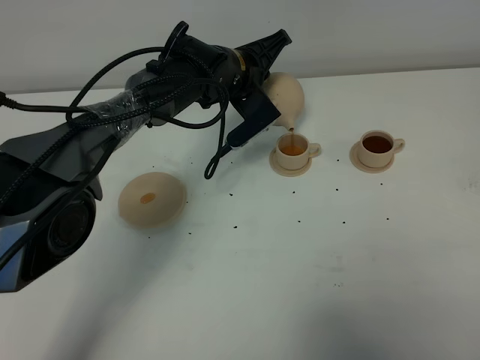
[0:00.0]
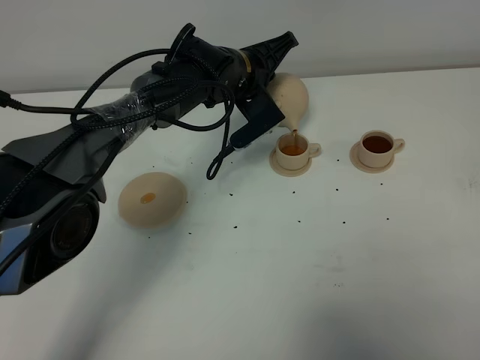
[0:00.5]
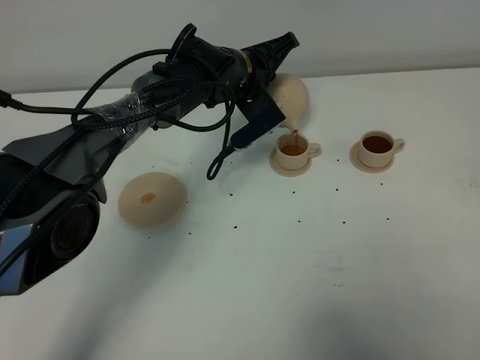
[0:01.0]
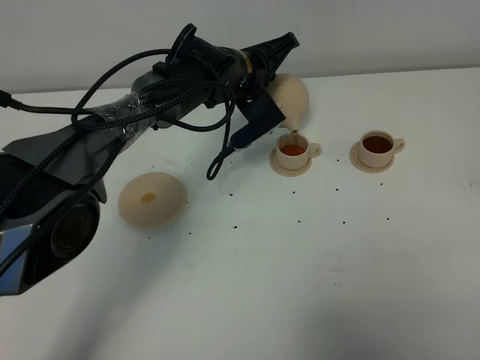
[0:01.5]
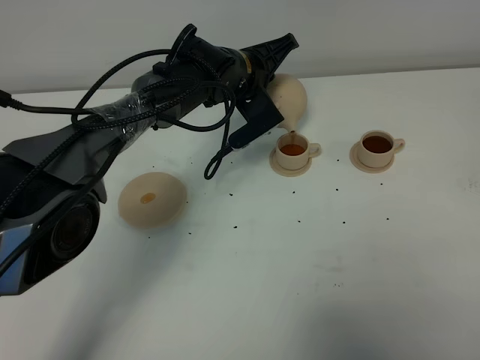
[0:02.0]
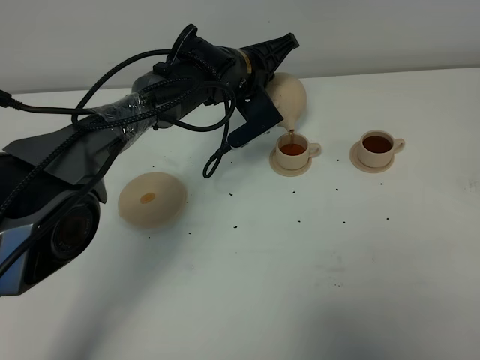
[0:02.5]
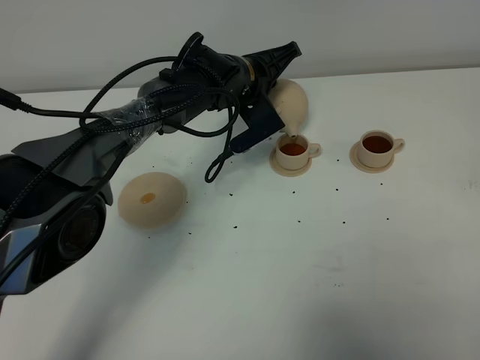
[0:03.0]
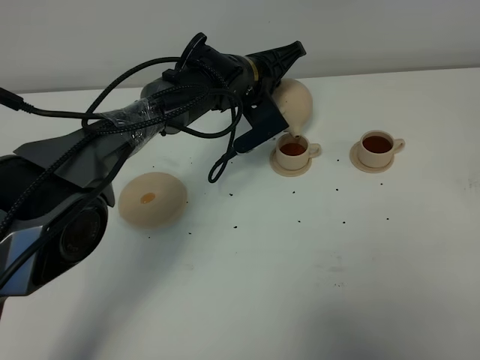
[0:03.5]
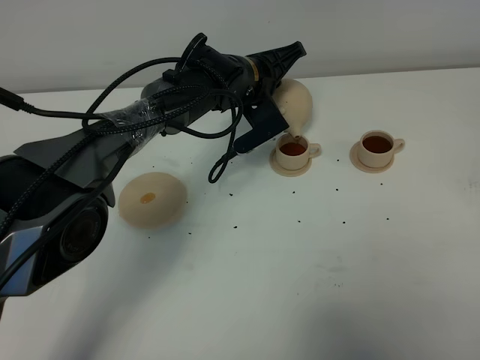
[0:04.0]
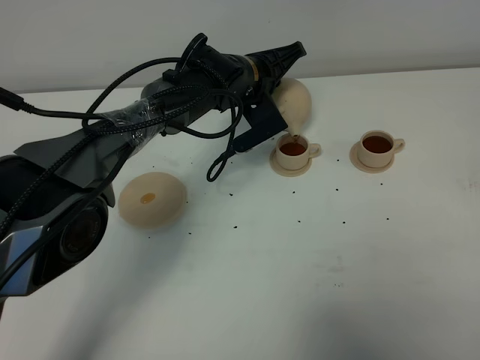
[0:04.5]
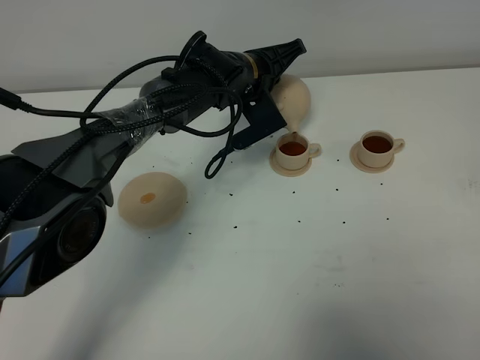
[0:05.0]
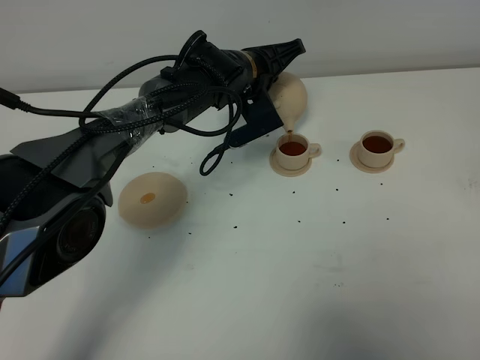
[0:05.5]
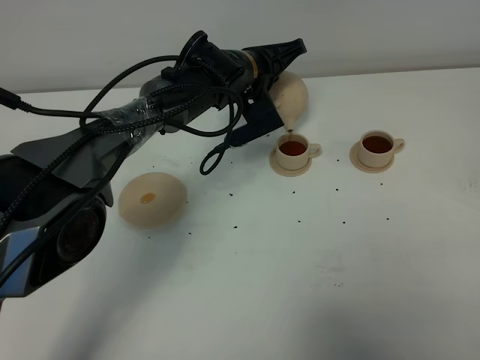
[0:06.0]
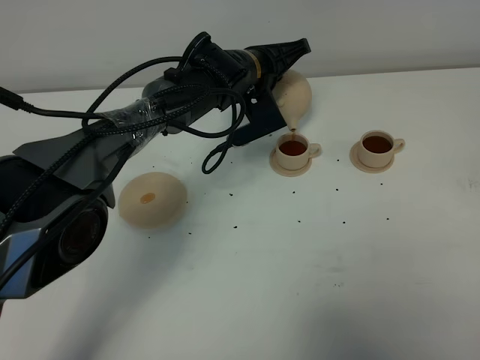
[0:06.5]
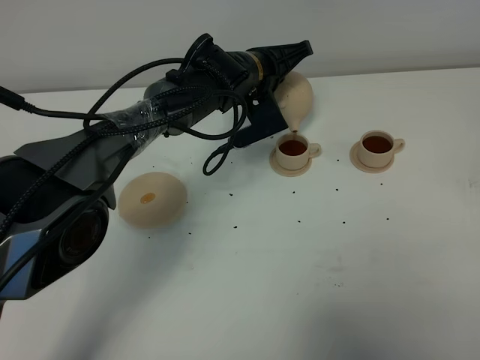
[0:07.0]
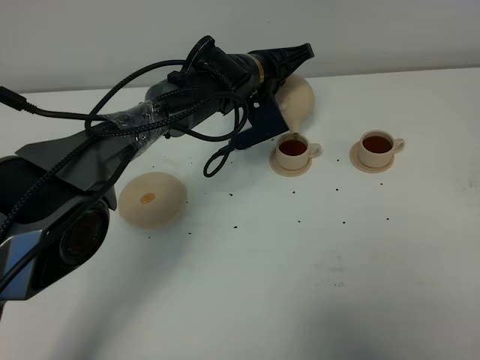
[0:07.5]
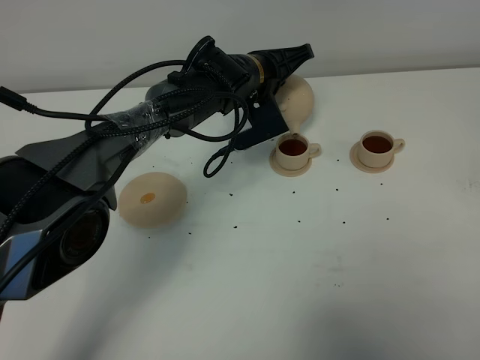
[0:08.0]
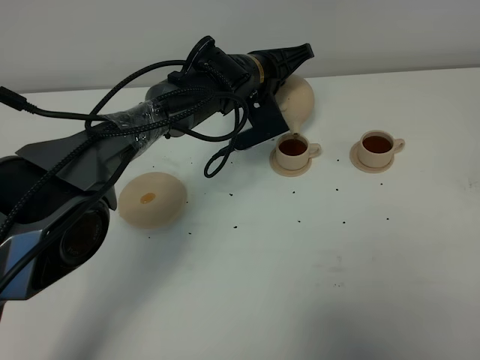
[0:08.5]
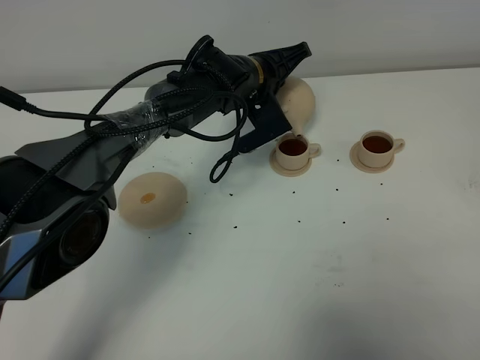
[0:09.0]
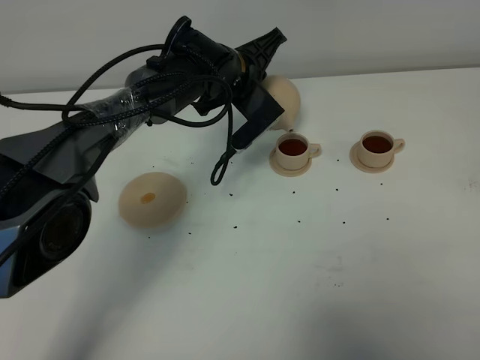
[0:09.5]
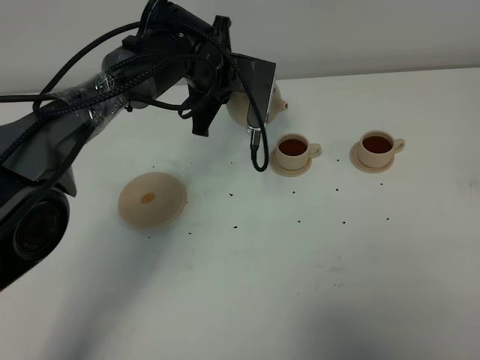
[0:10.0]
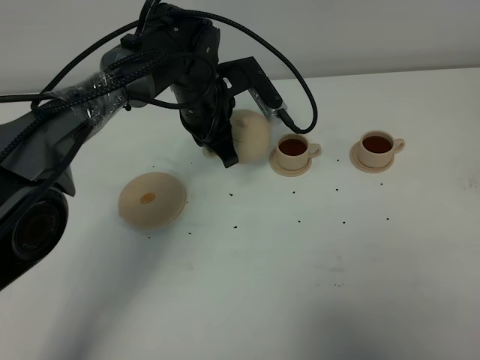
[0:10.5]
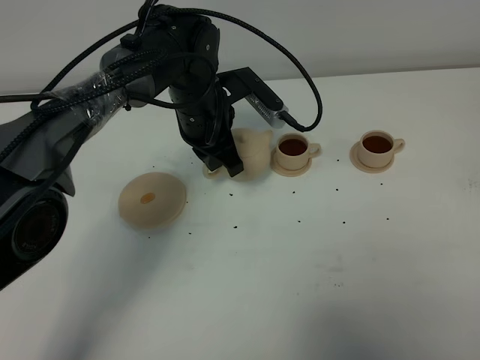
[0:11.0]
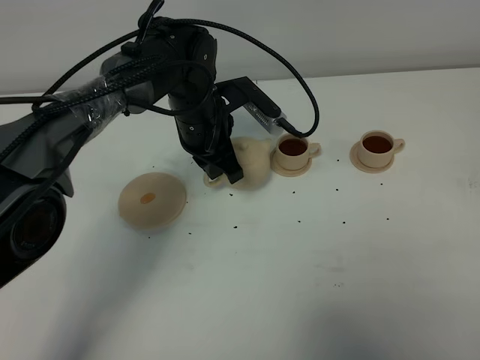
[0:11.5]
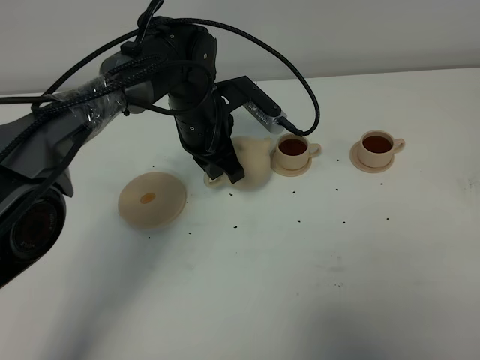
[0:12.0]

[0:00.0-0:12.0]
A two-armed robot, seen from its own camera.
Task of the whole recording: grasp the brown teapot and pour the tea into the two brown teacups one by one, put the brown teapot back in its original place.
Step, 0:00.0 to 0:09.5: Pour tea into the teacup with the left gripper.
0:00.0 to 0:02.0: Both grippers stay put.
0:02.0 to 0:04.0: The two grippers keep their place.
0:04.0 to 0:06.0: The grippers stay close to where they were, moving slightly.
0:06.0 to 0:08.0: Both grippers stay about where they are.
0:08.0 to 0:10.0: The left gripper shifts approximately 5 cm to the left.
0:10.0 to 0:12.0: The left gripper changes place by approximately 5 cm.

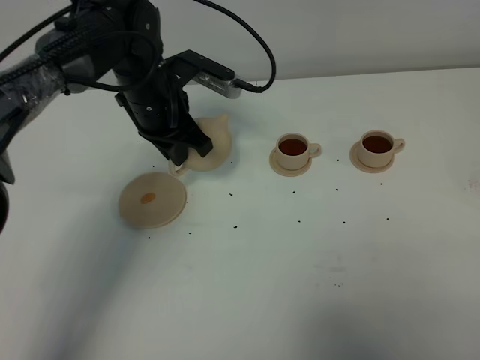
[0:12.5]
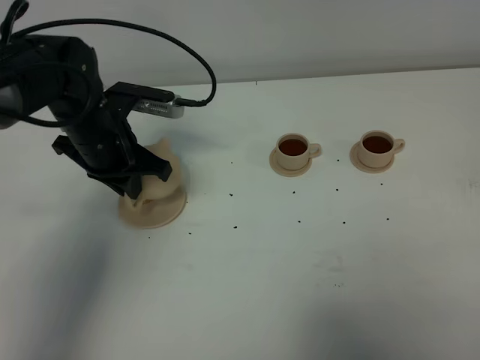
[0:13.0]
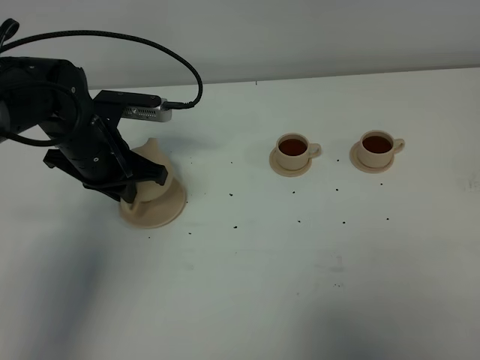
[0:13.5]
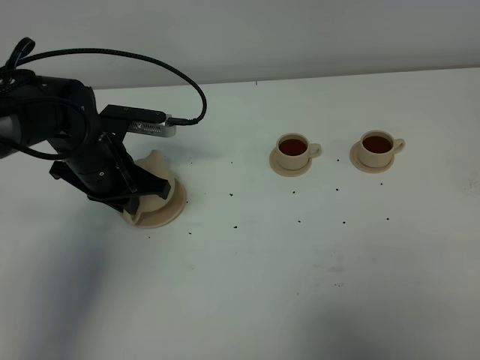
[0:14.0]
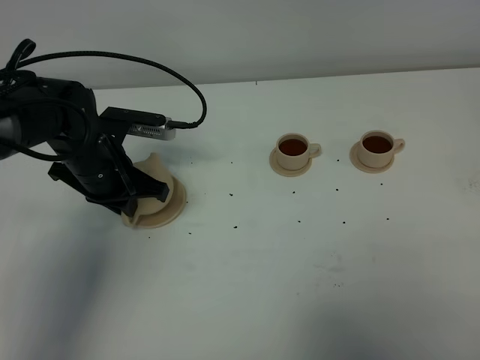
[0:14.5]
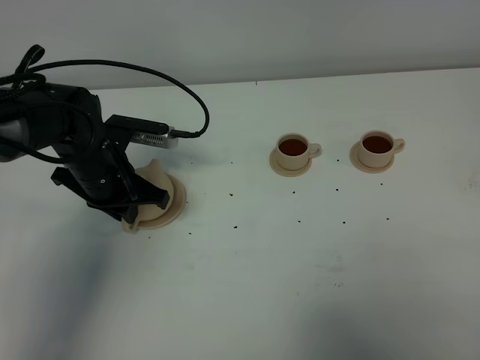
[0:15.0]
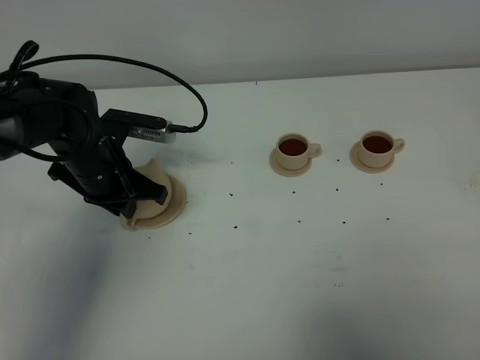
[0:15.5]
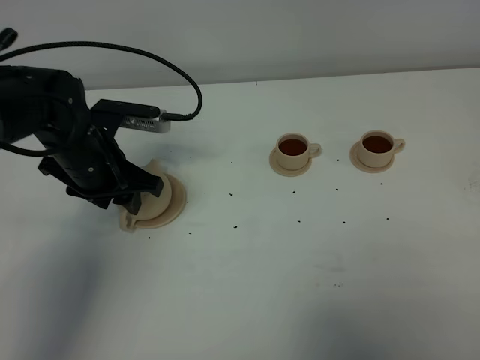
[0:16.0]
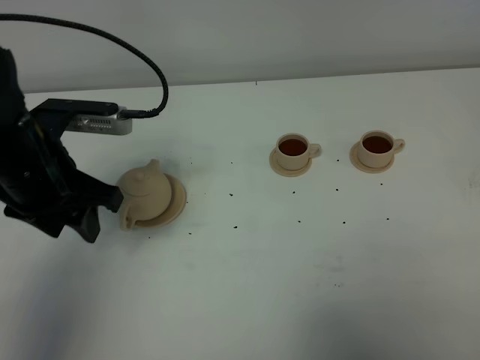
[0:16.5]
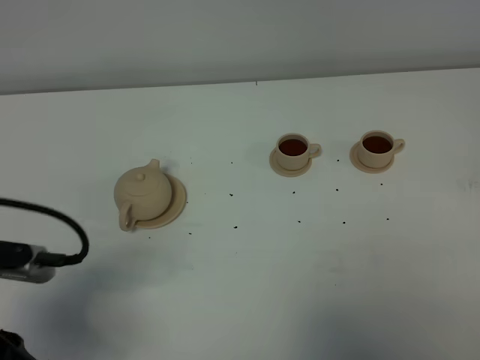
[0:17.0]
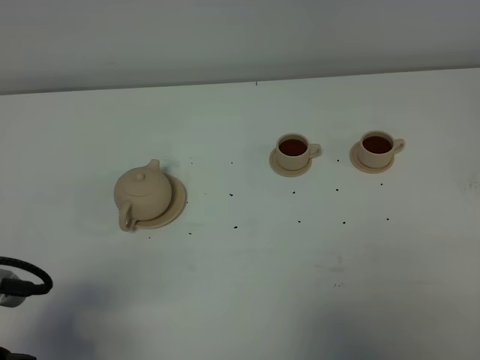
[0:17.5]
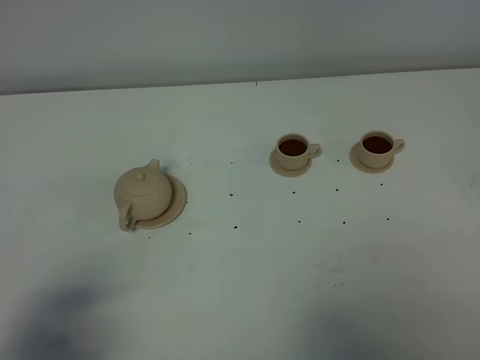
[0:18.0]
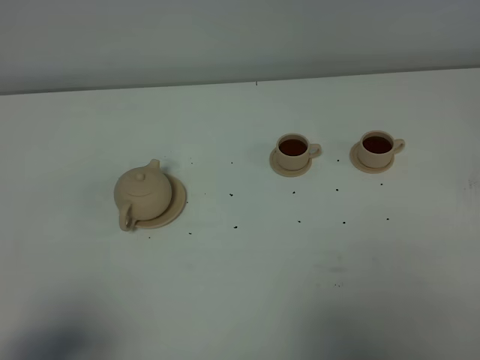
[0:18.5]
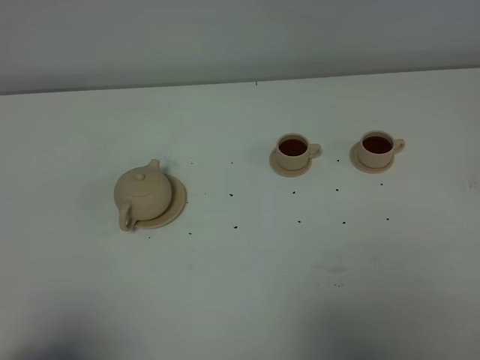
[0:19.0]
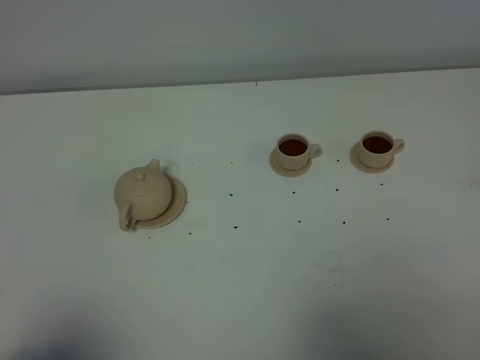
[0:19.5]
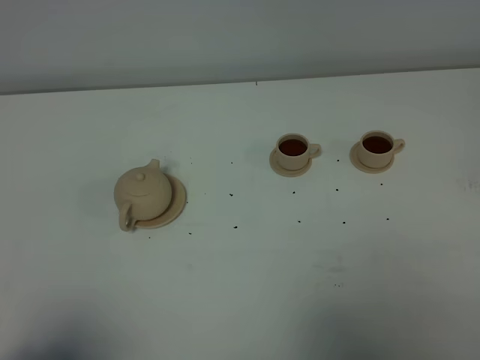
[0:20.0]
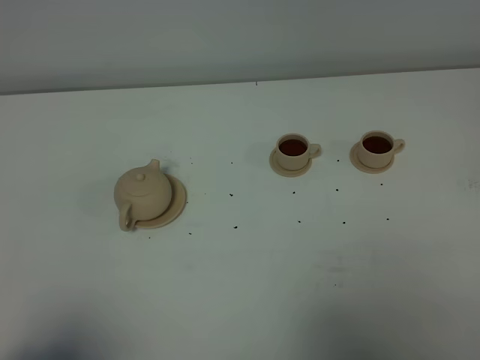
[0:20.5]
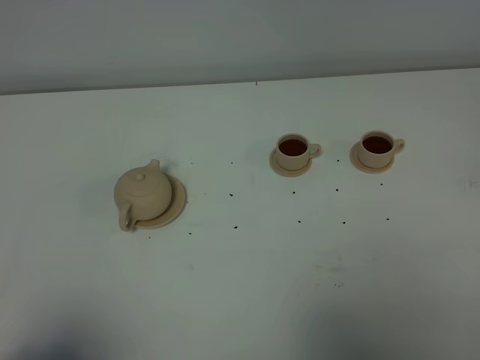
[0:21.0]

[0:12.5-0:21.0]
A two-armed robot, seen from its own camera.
Task of the whole recording: grasp the brown teapot and pour the tea into the two brown teacups one by one, put the brown teapot back in its original place.
0:12.5 to 0:14.5: The left gripper goes approximately 10 cm to the left and backward.
0:14.5 to 0:16.5: The left gripper heads upward and backward, covering about 15 cm, and opens up.
0:16.5 to 0:19.0: The left gripper goes some 30 cm backward.
0:19.0 to 0:21.0: Both grippers stay put.

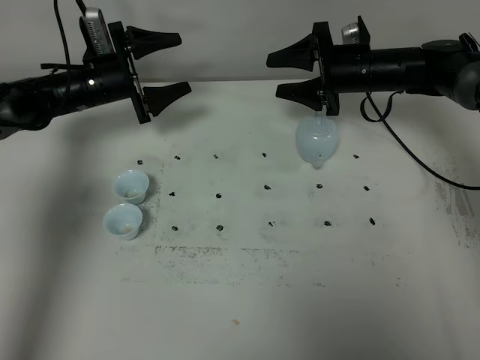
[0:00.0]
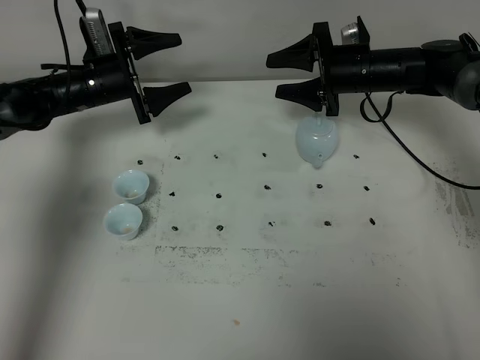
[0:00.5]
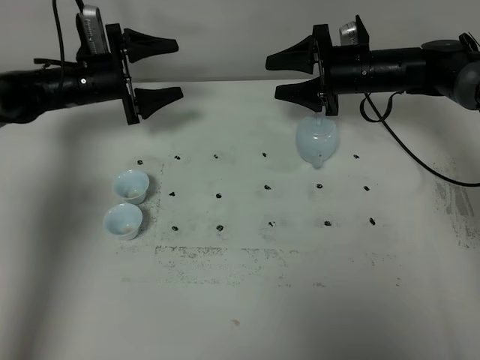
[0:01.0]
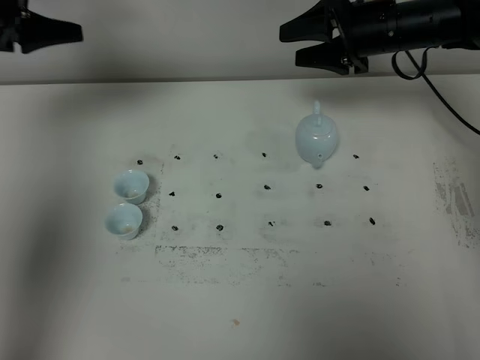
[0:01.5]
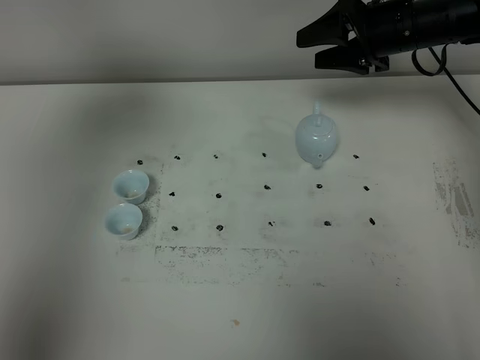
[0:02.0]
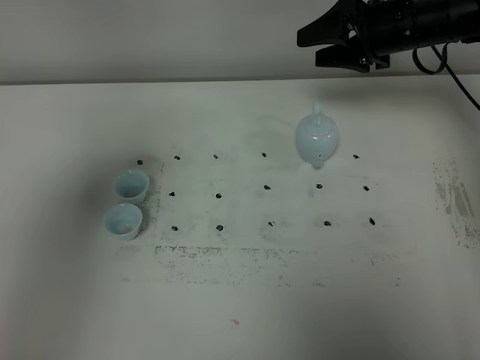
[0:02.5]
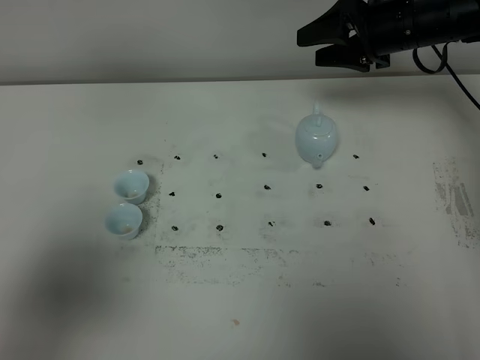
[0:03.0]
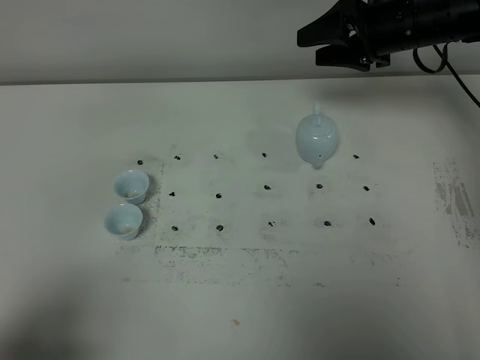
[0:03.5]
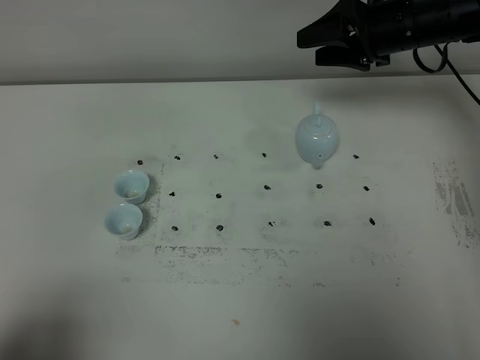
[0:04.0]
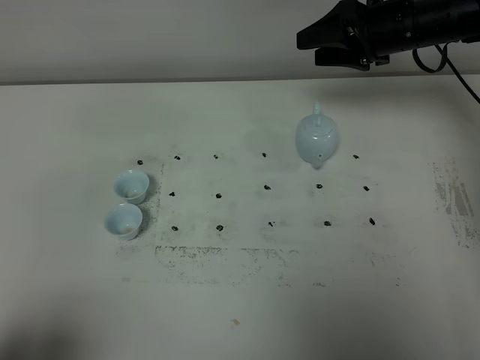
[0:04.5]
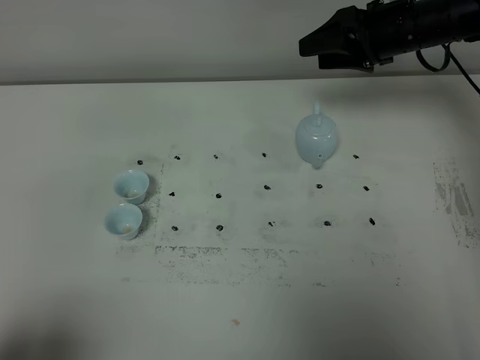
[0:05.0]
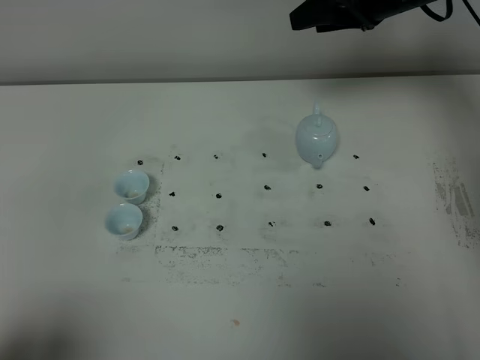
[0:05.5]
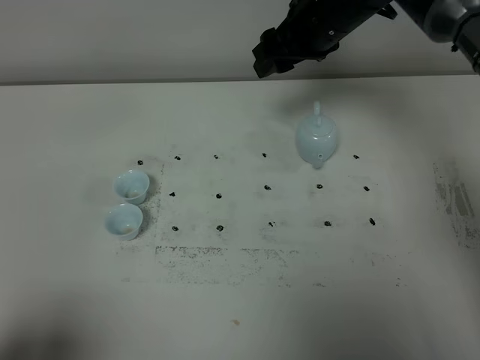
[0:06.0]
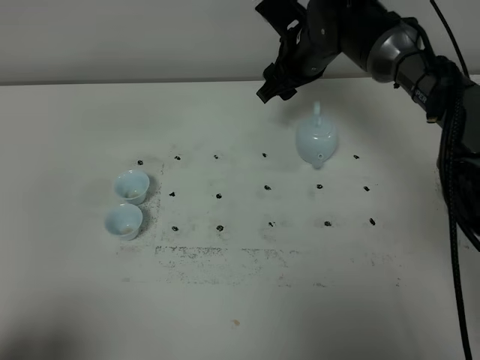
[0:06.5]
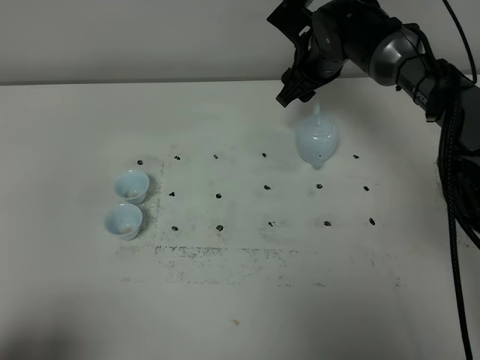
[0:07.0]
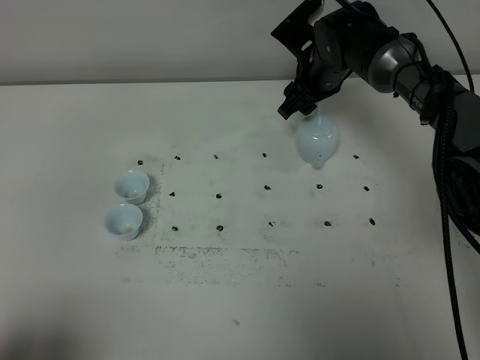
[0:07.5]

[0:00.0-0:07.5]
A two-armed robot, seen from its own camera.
Task of the whole recording: grasp the blue porcelain teapot and pour the tea into the two blue porcelain teacups one by one, put the blue porcelain teapot back in its original place.
0:00.0 to 0:02.0: The left gripper moves upward and backward, approximately 40 cm, while the right gripper is displaced upward by roughly 10 cm.
0:02.0 to 0:04.0: The left gripper is displaced backward and downward by some 35 cm.
0:04.0 to 0:05.5: The right gripper is displaced upward by some 5 cm.
0:05.5 to 0:07.5: The right gripper moves downward and to the left, some 15 cm.
